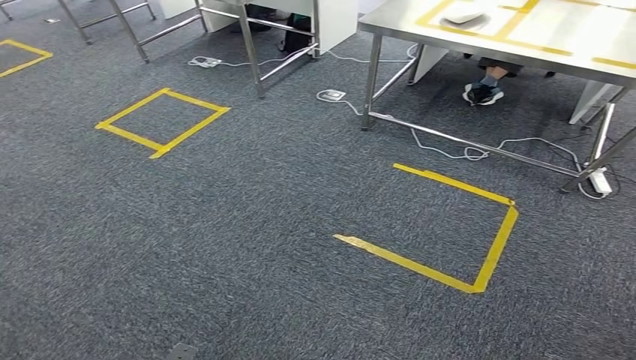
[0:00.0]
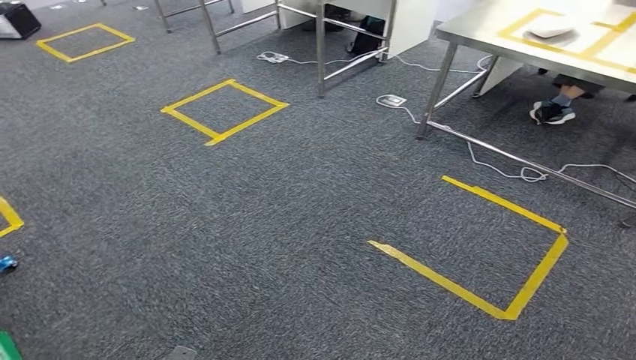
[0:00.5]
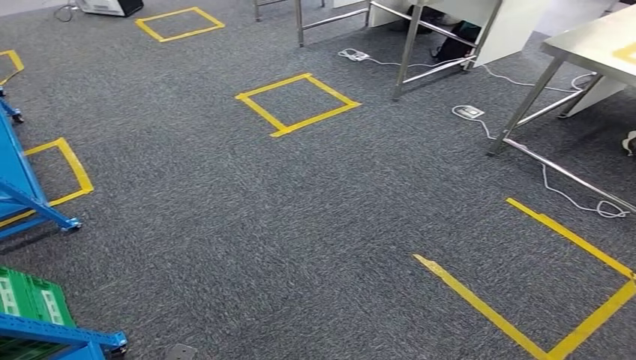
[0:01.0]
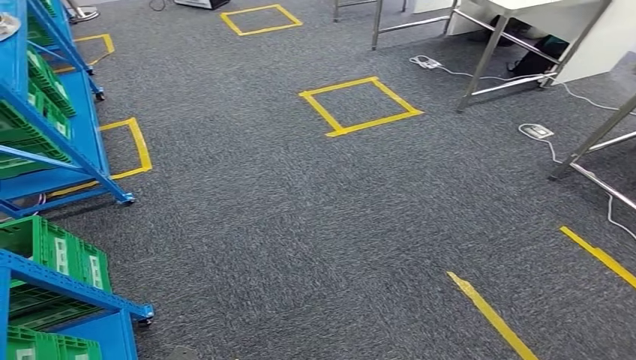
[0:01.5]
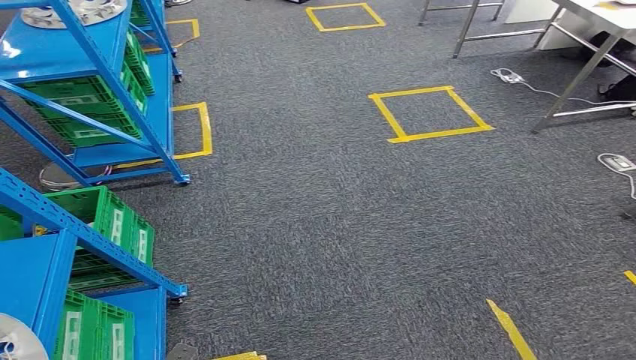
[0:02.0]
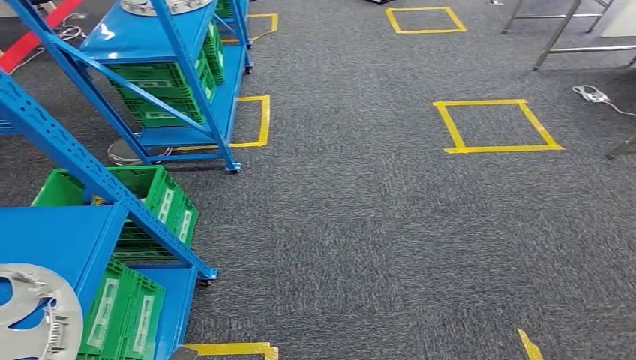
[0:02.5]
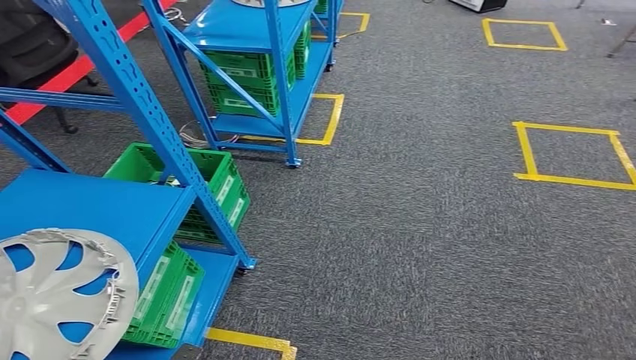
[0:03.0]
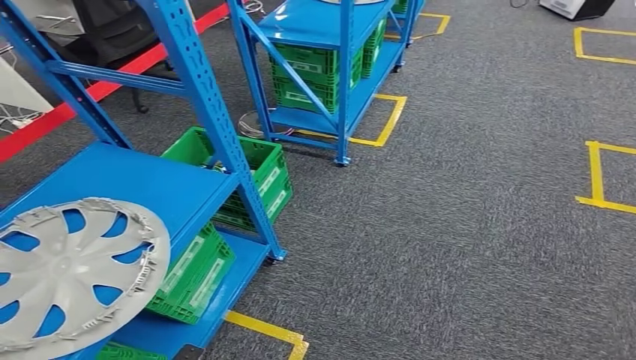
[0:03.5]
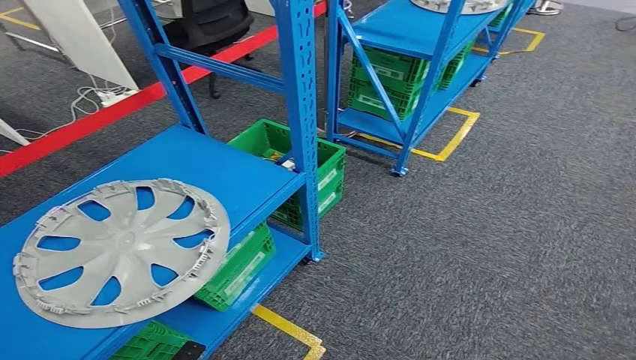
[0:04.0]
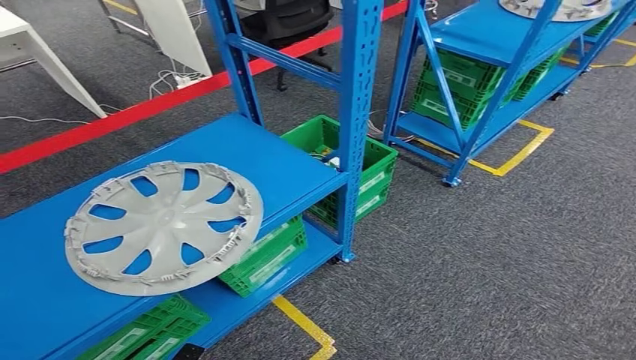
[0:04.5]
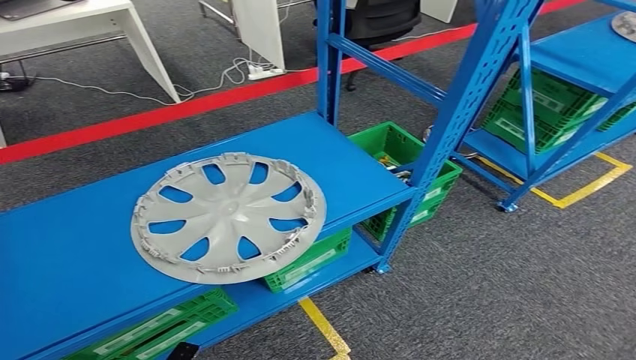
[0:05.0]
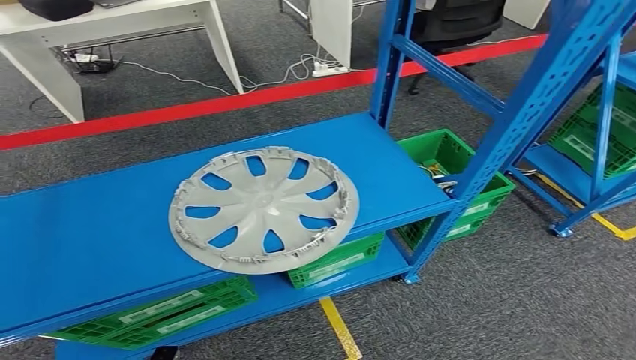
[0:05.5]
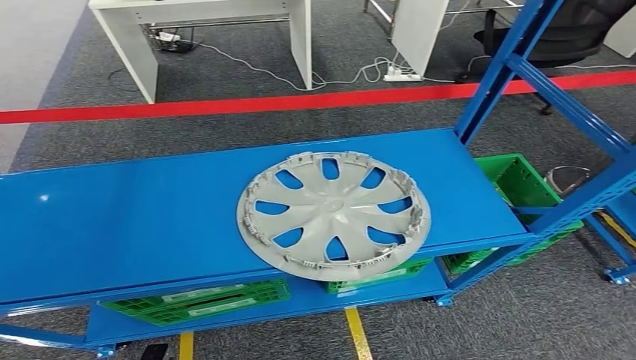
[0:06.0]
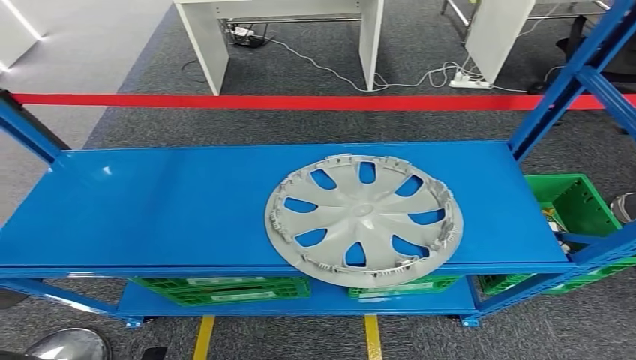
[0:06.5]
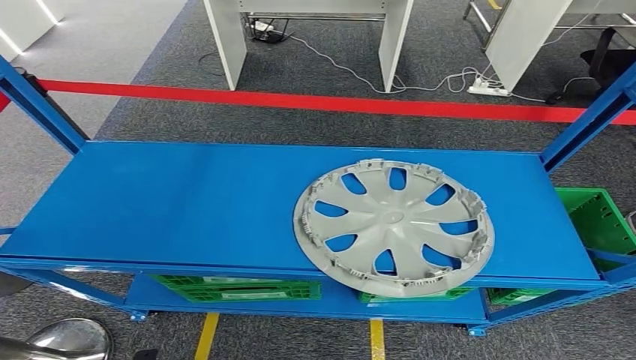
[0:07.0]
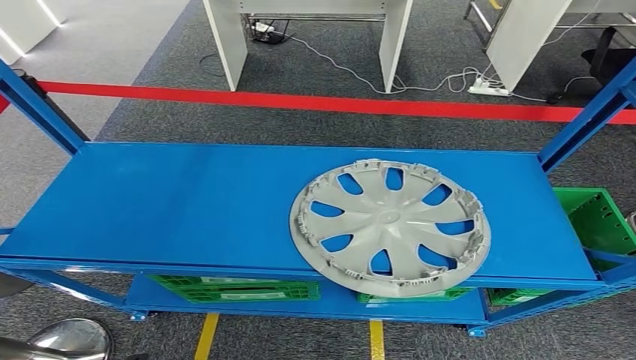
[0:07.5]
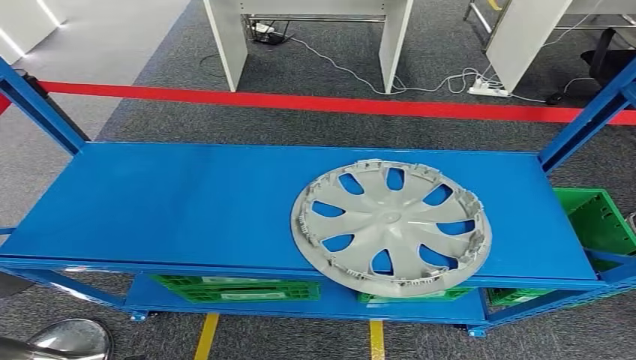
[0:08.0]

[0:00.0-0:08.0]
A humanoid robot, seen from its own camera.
Step, 0:00.0 to 0:07.5: Return to the initial position at the workbench.
